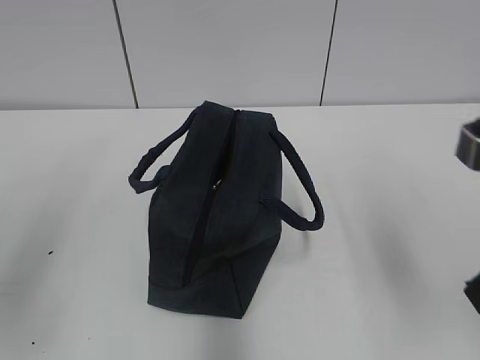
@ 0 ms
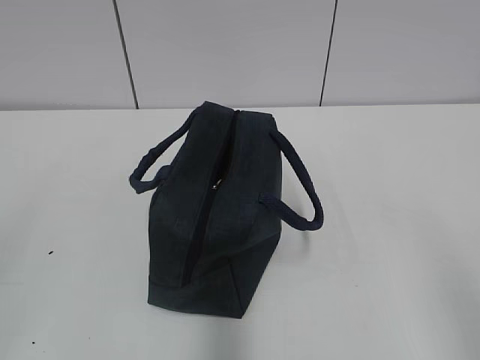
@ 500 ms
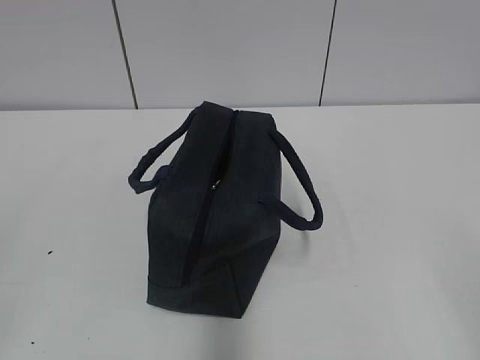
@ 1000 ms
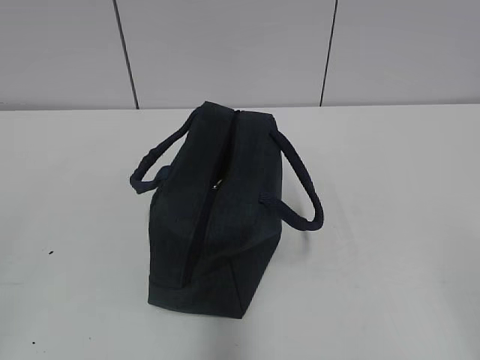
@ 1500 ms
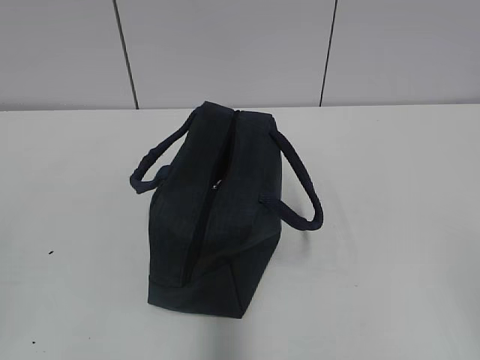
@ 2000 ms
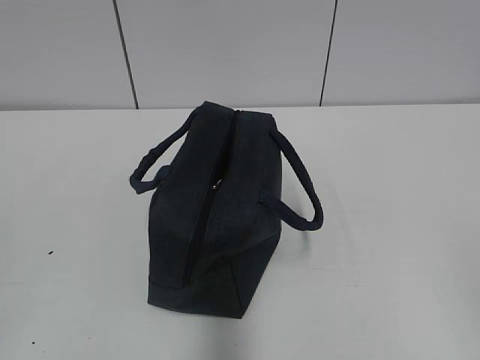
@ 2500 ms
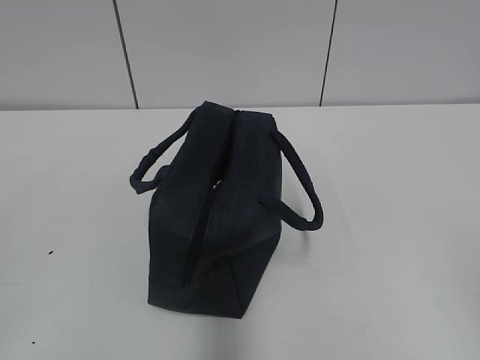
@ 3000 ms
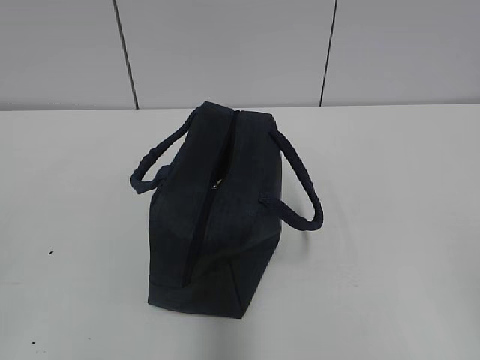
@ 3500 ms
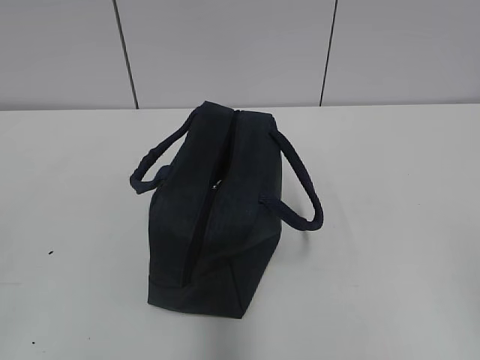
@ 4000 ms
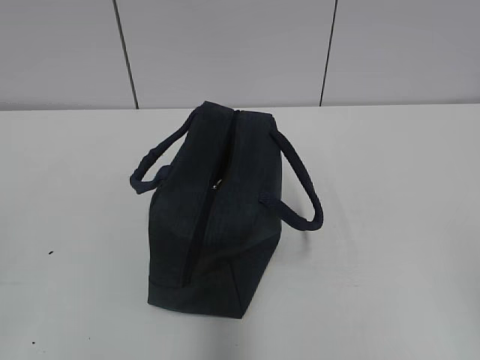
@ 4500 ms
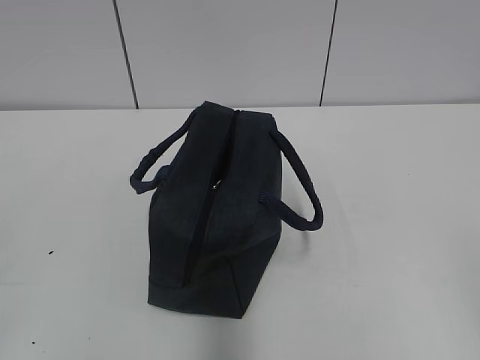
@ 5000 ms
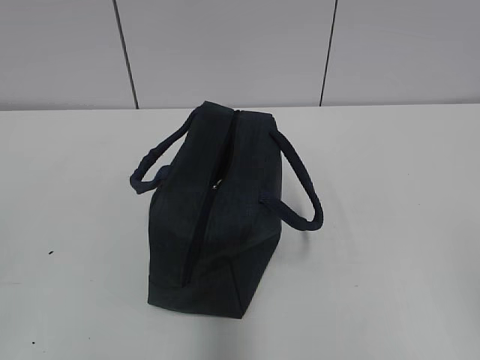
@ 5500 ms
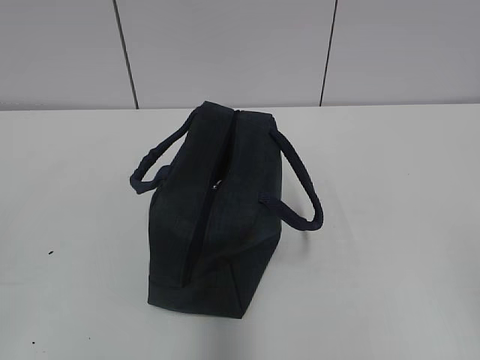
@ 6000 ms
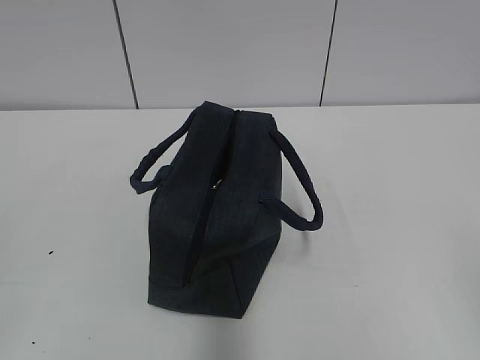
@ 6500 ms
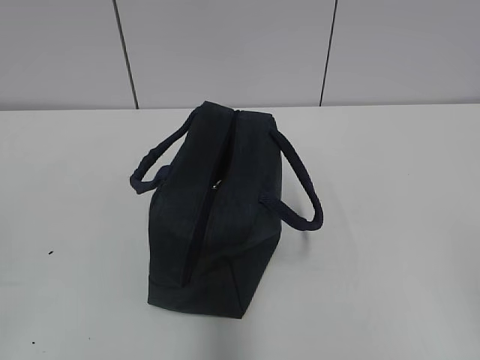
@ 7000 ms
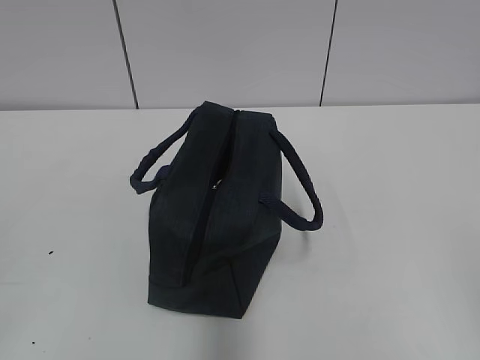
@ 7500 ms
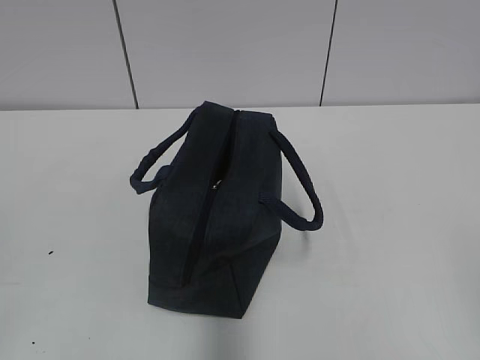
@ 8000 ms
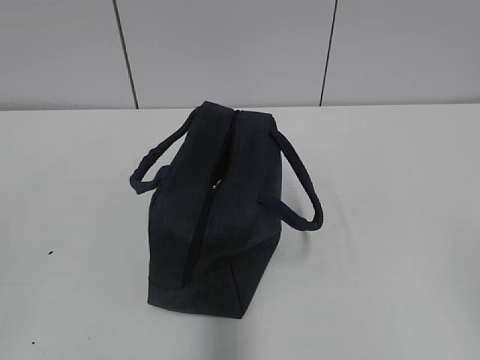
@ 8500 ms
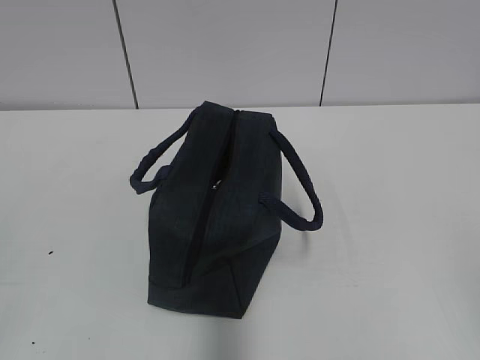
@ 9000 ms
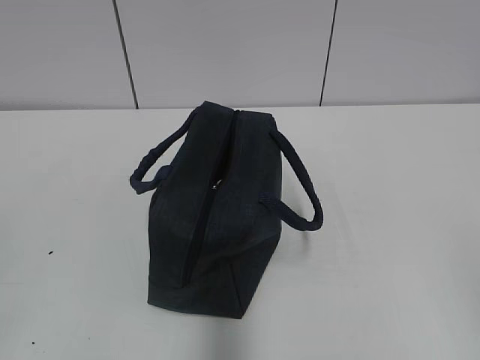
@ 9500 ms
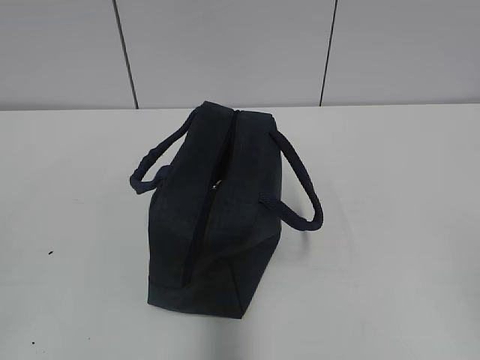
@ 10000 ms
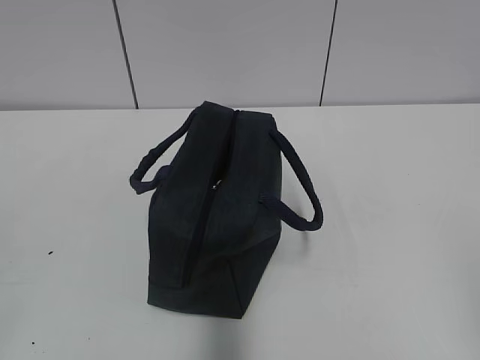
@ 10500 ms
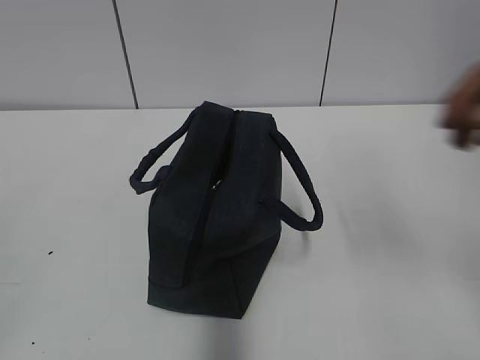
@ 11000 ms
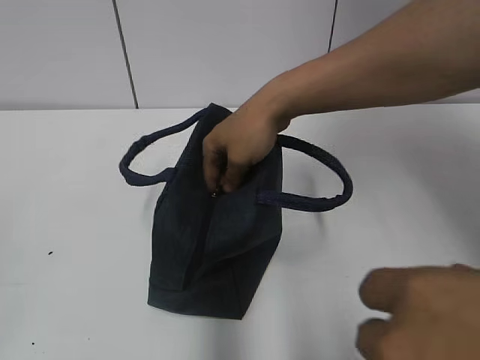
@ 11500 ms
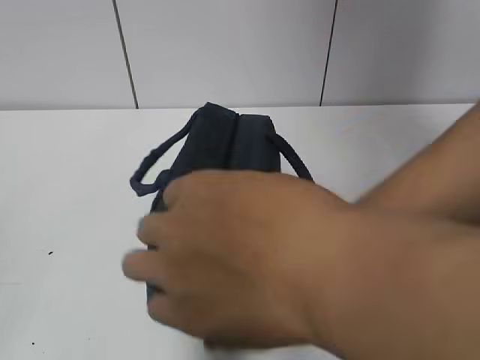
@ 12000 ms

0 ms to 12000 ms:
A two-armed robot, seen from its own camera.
0 ms to 2000 ms: The left gripper travels backward and to the left by roughly 15 cm. The right gripper goes about 20 cm backward and to the right.
4000 ms to 10000 ms: Both grippers stay about where they are.
